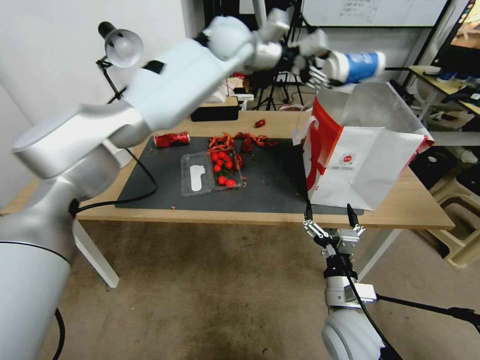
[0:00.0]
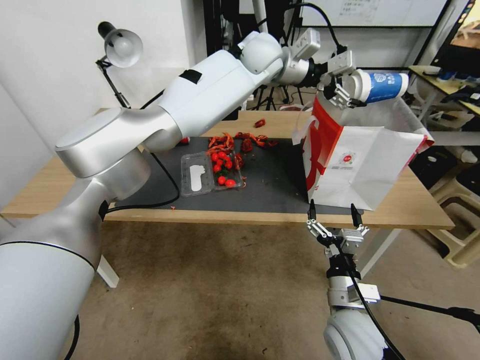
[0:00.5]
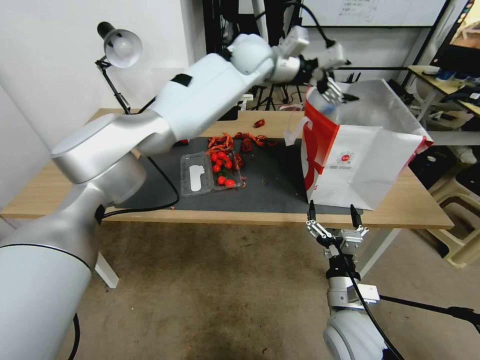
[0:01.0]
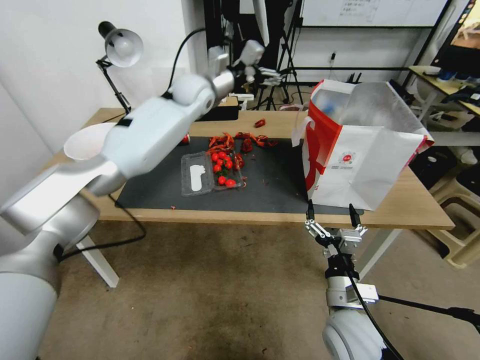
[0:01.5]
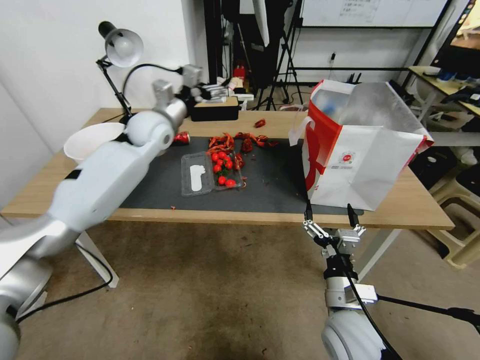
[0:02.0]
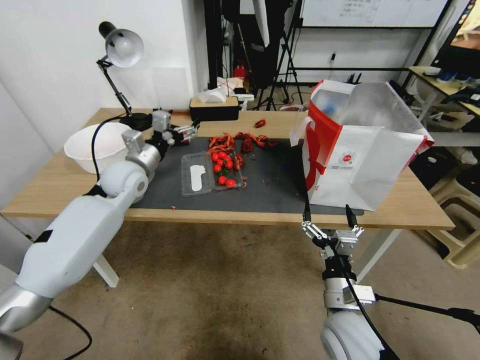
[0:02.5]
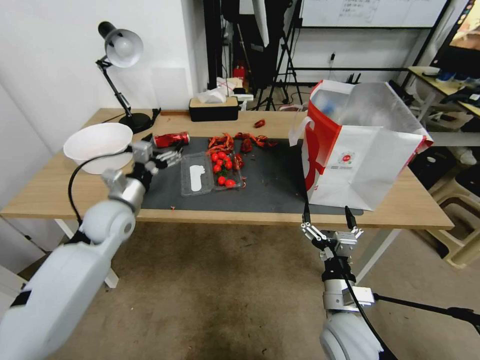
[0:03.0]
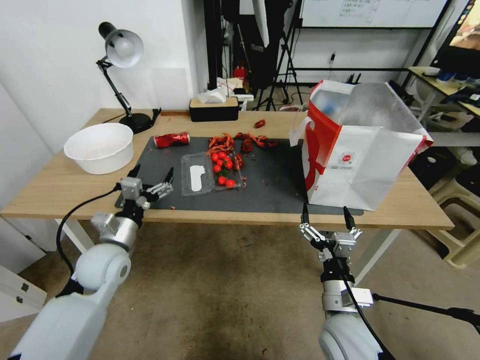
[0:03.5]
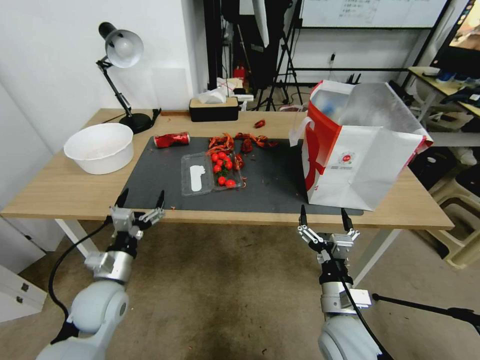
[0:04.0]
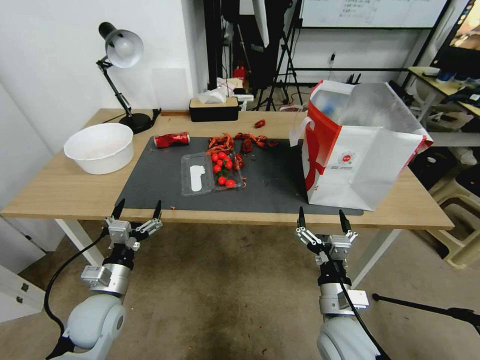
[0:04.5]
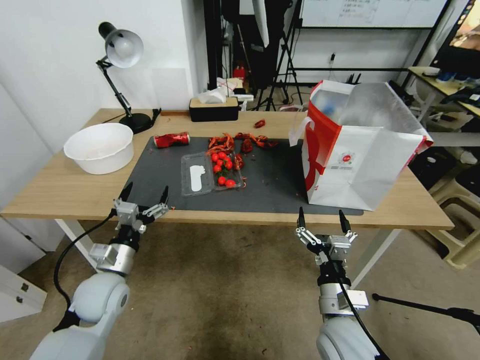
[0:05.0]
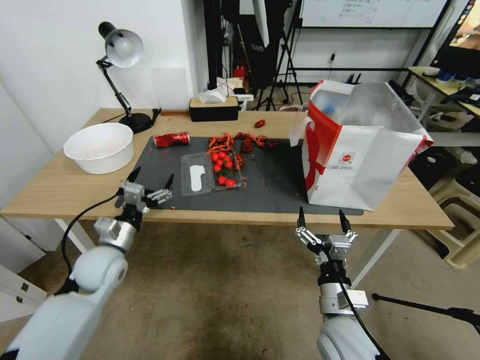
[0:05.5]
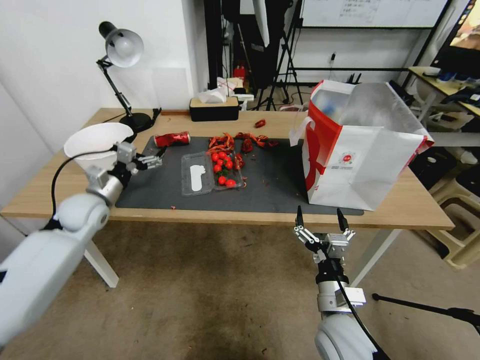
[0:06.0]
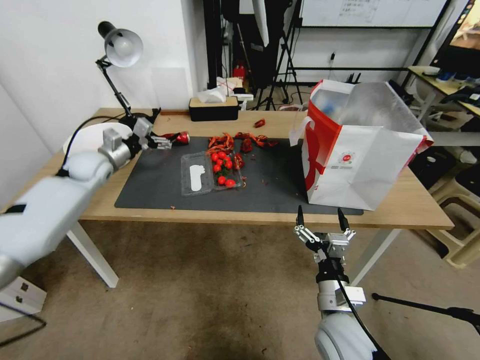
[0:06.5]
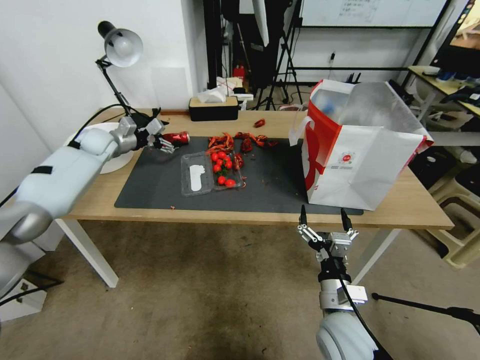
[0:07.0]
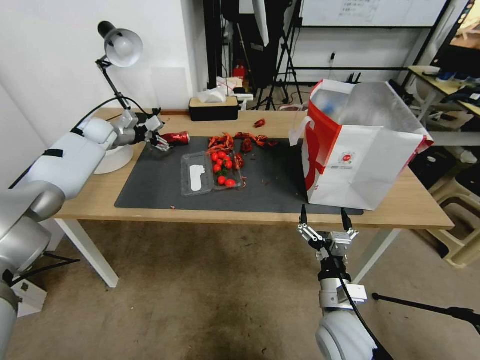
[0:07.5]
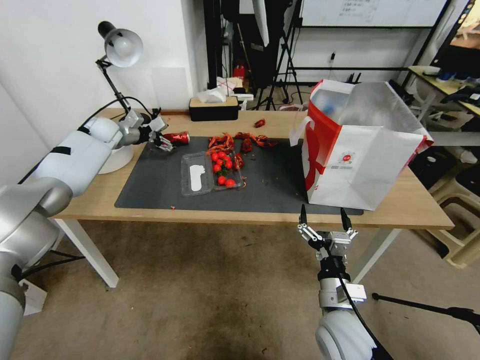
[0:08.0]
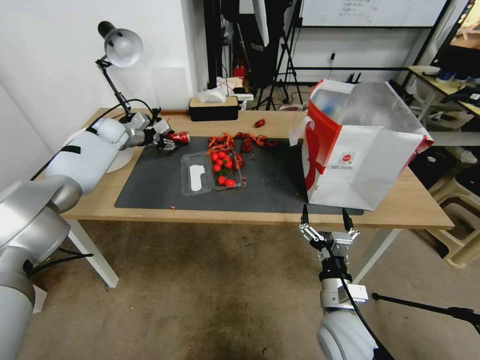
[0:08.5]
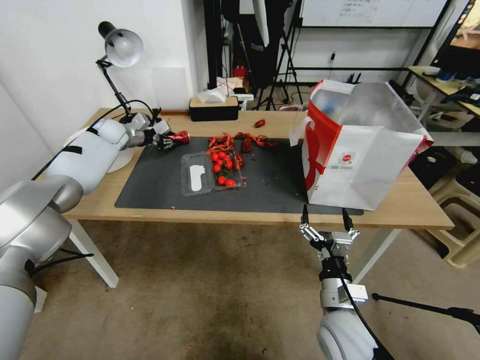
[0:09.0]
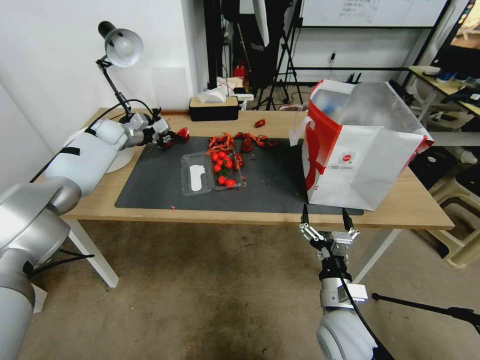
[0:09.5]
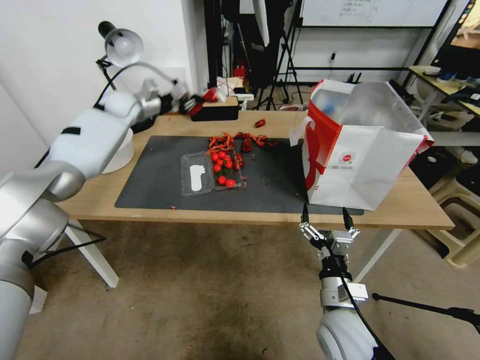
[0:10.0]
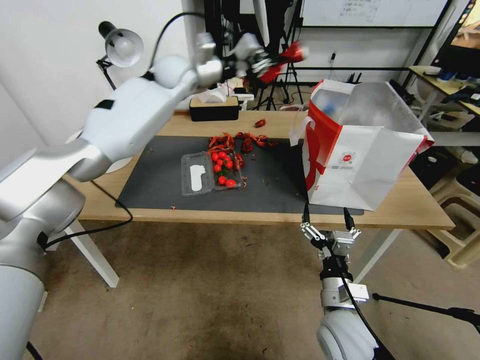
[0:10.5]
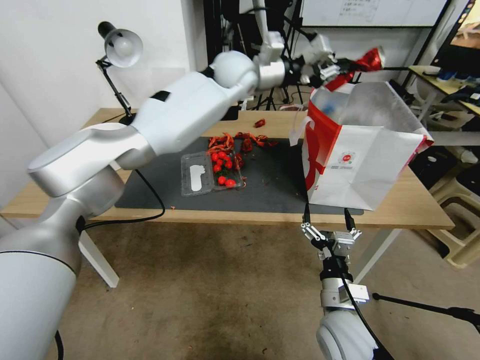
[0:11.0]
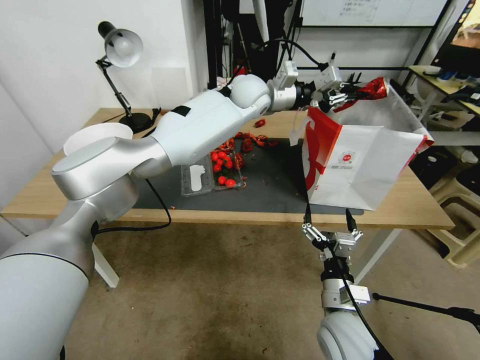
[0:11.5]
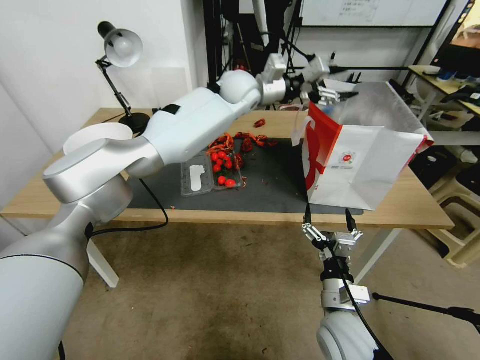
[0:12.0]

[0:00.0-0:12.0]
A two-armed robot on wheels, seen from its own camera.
0:00.0 to 0:02.0: The left gripper goes about 15 cm downward and backward, goes to the right and returns, some 15 cm each way, and opens its fingers.
0:02.0 to 0:04.0: The left gripper heads backward and downward, covering some 35 cm.
0:04.0 to 0:06.0: The left gripper shifts roughly 15 cm forward, to the left and upward.
0:06.0 to 0:08.0: The left gripper heads forward, covering approximately 25 cm.
0:08.0 to 0:10.0: The left gripper heads to the right and upward, covering some 10 cm, and closes up.
0:10.0 to 0:12.0: The left gripper goes some 35 cm to the right, and opens.

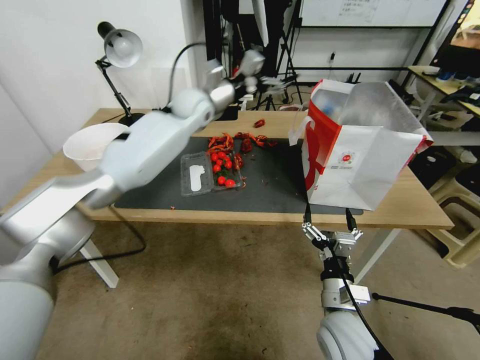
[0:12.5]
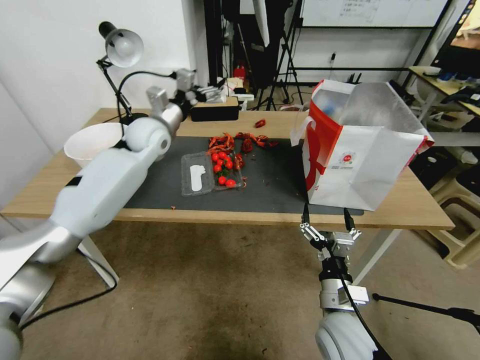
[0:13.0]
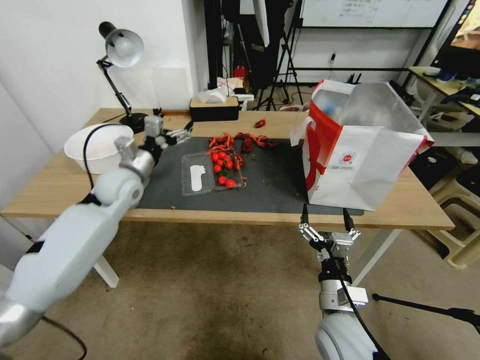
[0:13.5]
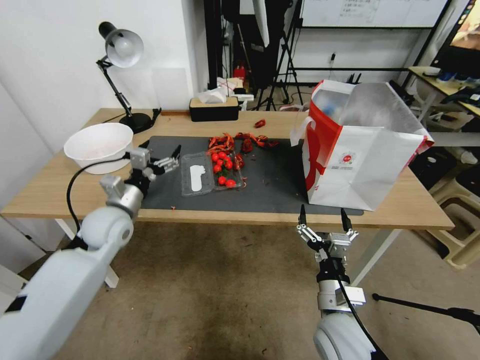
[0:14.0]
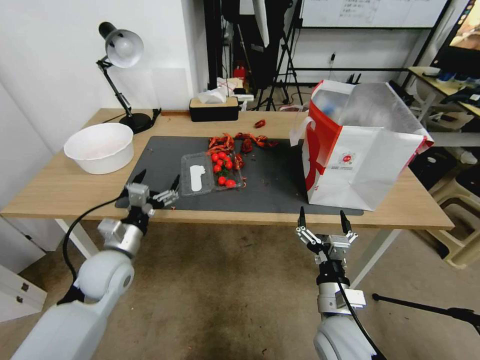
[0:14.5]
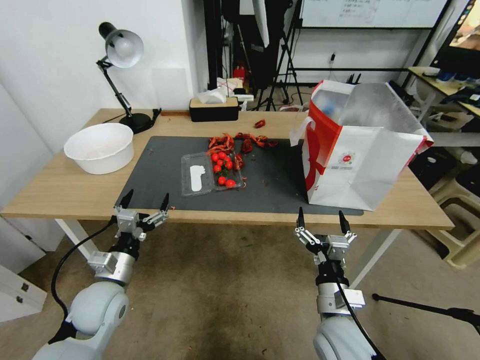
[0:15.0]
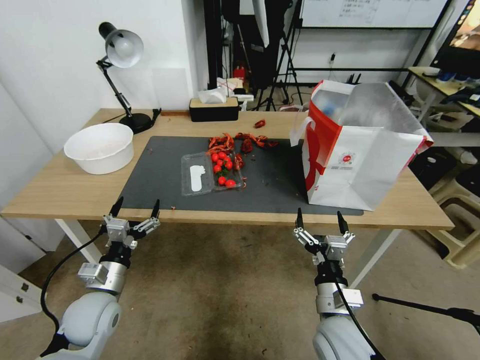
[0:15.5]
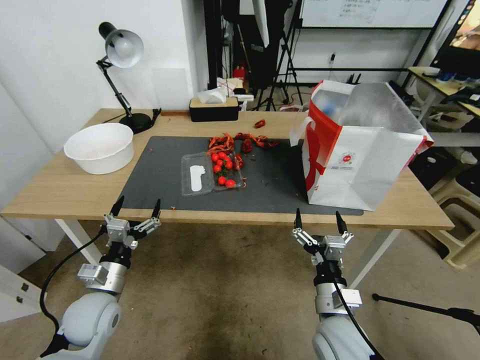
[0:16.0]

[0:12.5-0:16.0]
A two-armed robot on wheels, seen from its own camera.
0:12.5 to 0:14.5: The left gripper travels backward, downward and to the left by roughly 50 cm.
0:14.5 to 0:16.0: The left gripper goes about 10 cm backward and downward.

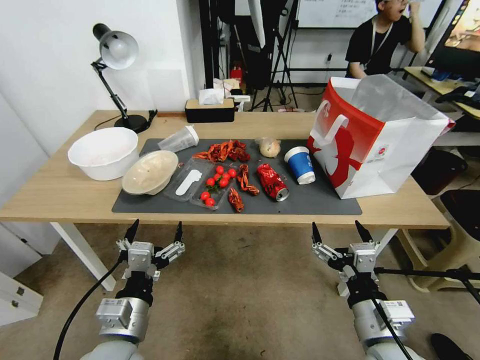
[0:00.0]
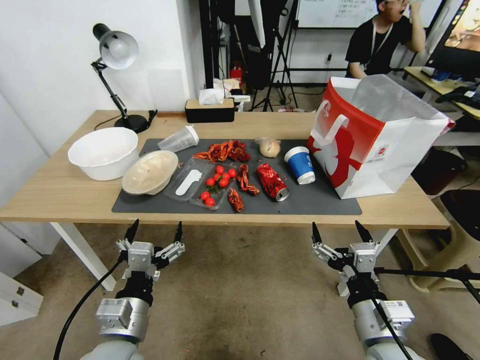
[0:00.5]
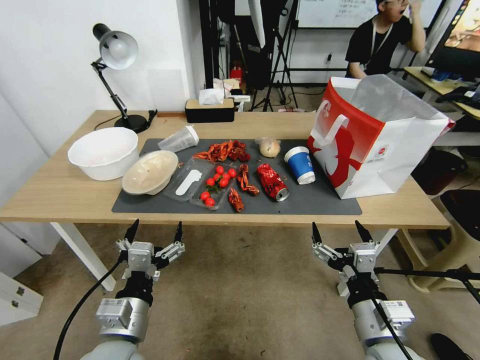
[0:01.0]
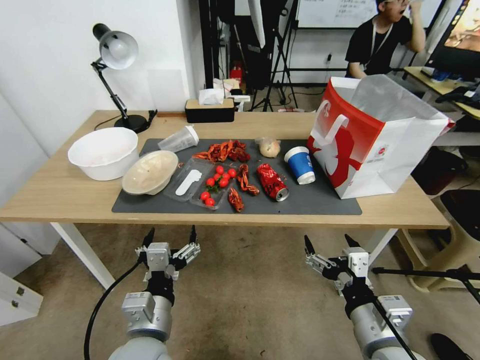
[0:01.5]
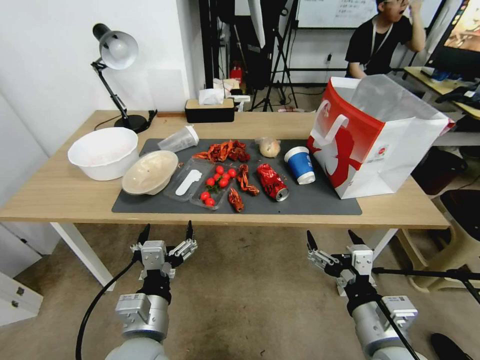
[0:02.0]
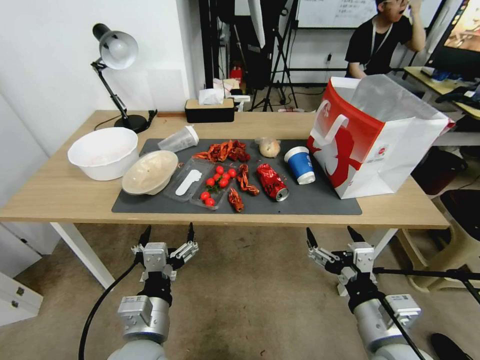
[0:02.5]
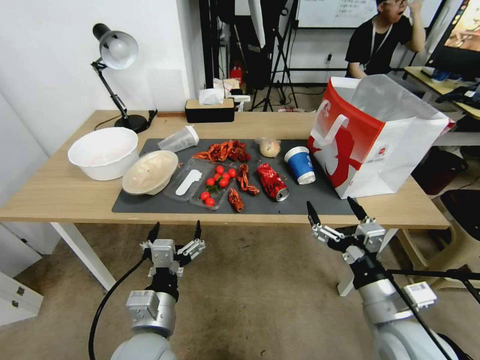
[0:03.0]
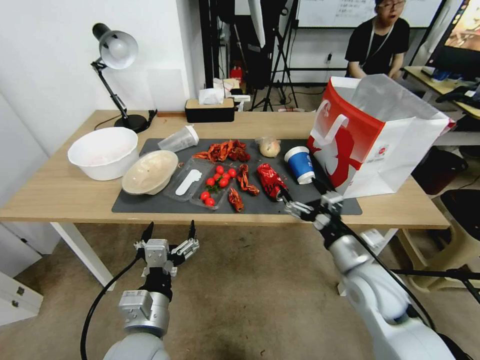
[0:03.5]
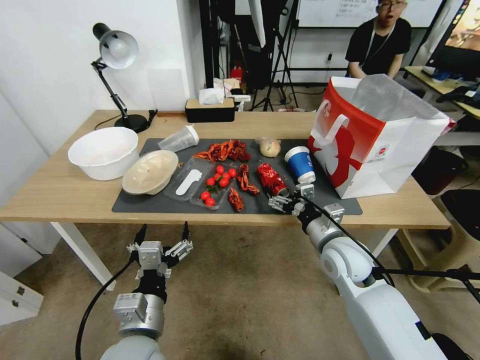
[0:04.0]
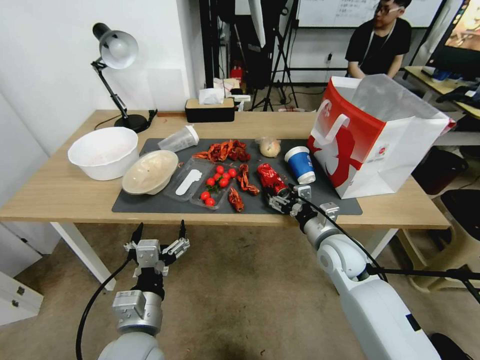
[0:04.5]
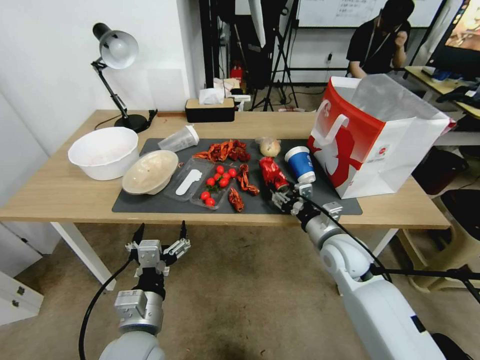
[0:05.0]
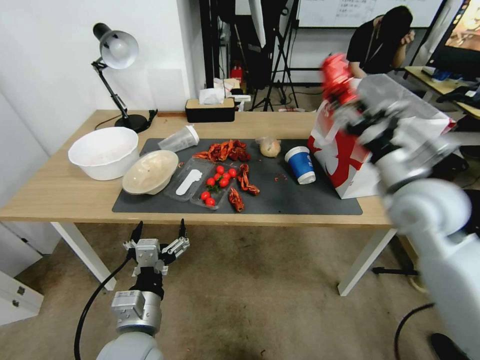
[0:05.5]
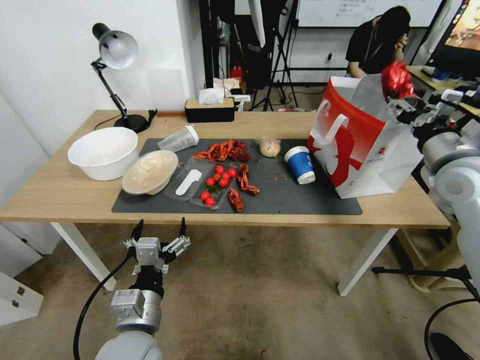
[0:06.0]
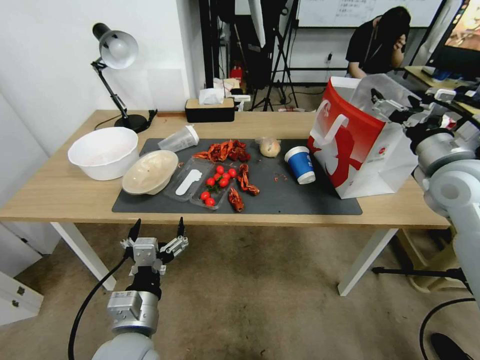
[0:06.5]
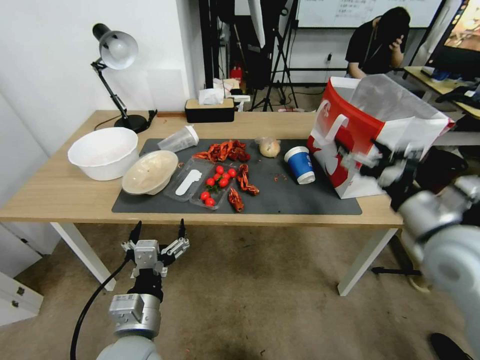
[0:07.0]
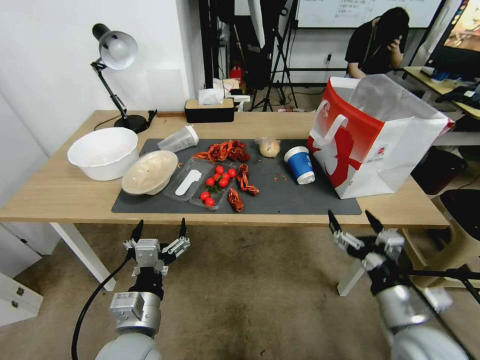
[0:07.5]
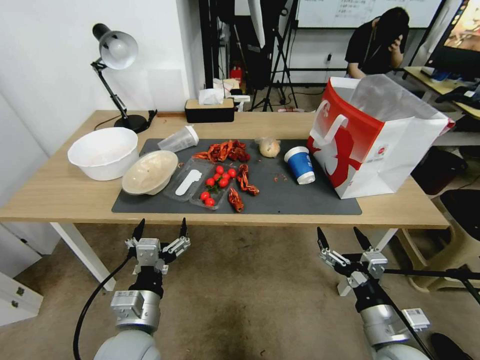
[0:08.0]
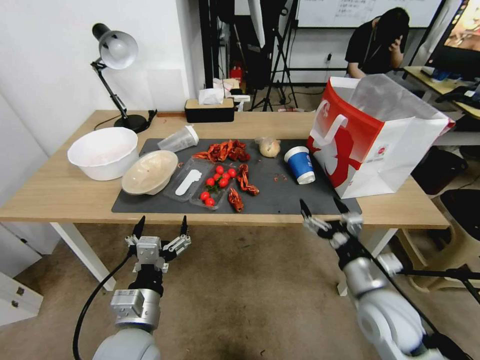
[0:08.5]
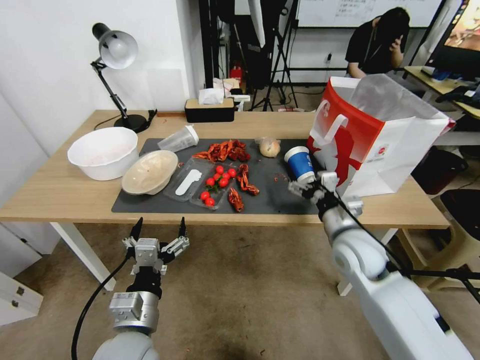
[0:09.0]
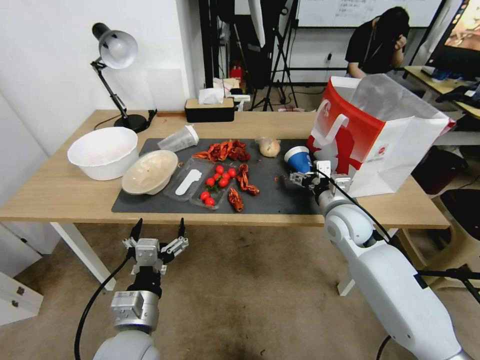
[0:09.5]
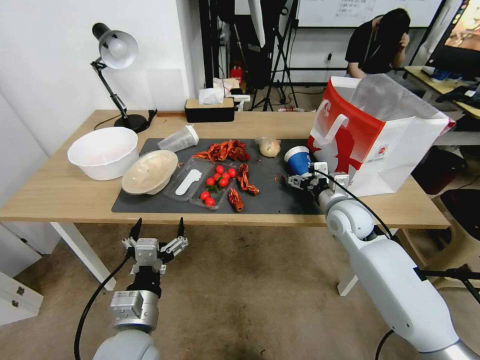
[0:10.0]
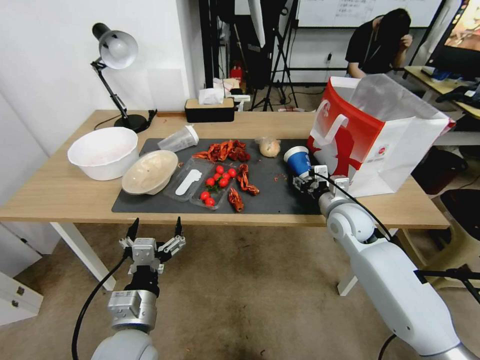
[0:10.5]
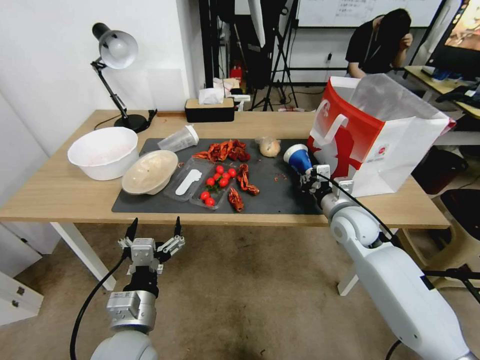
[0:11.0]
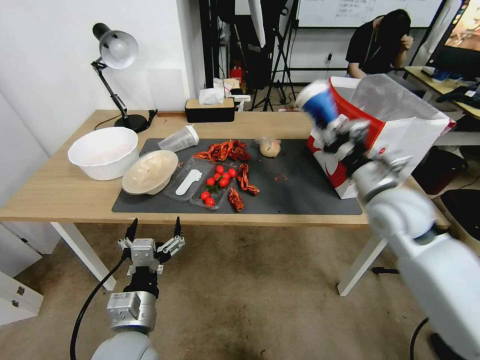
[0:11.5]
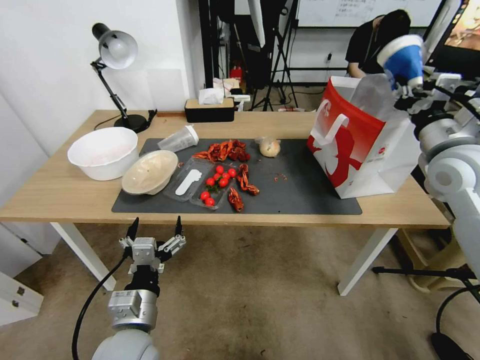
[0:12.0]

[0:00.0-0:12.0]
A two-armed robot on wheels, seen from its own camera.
0:02.0 to 0:04.0: The right gripper travels forward by about 20 cm.
0:04.0 to 0:06.0: The right gripper moves upward and to the right, about 25 cm, and closes its fingers.
0:06.0 to 0:08.0: The right gripper moves downward, backward and to the left, some 35 cm, and opens up.
0:08.0 to 0:10.0: The right gripper shifts about 25 cm forward.
0:10.0 to 0:12.0: The right gripper travels upward and to the right by about 25 cm, and closes.
